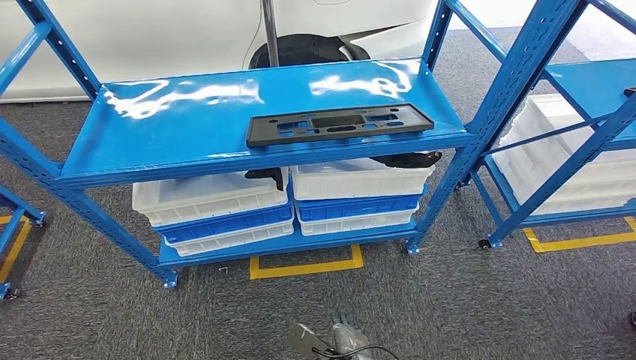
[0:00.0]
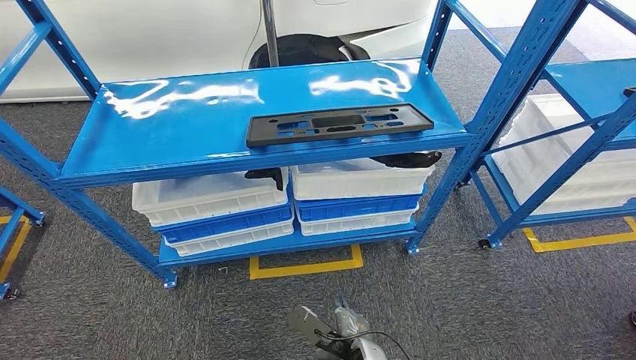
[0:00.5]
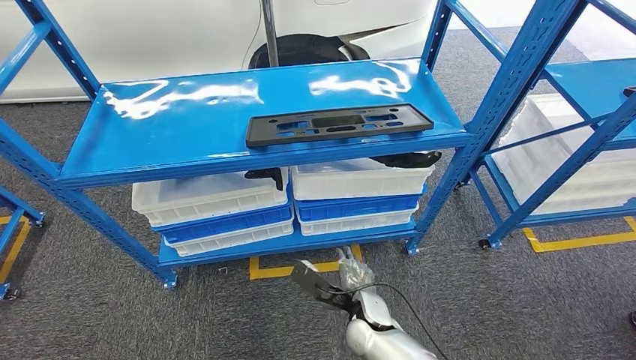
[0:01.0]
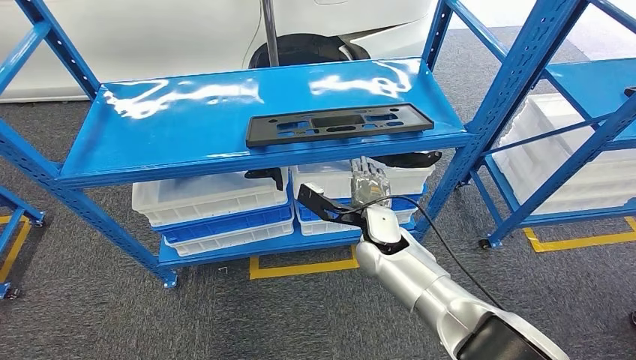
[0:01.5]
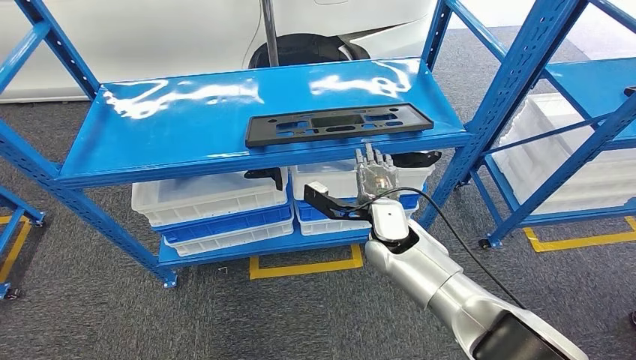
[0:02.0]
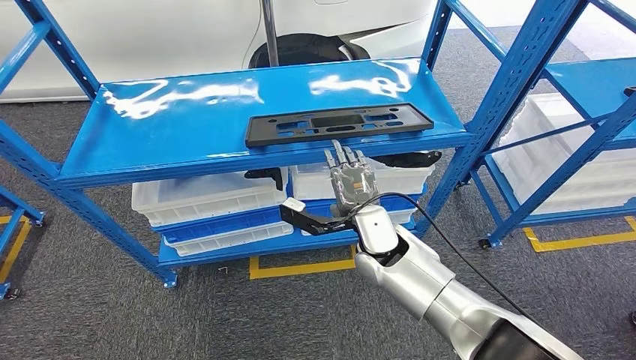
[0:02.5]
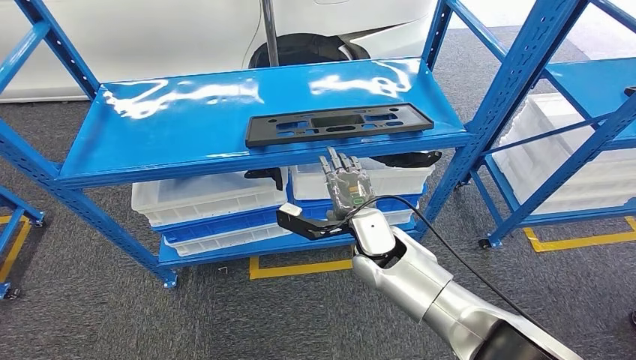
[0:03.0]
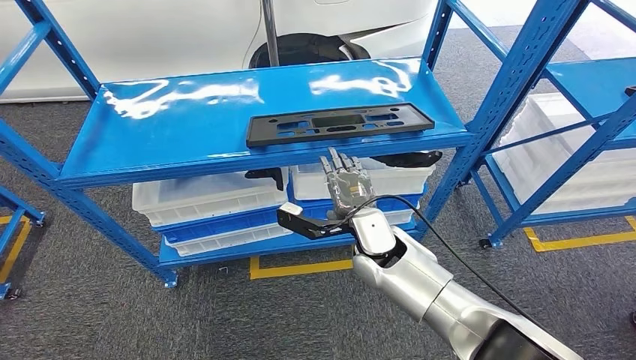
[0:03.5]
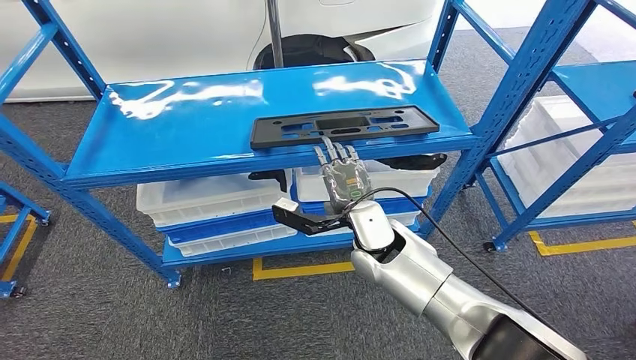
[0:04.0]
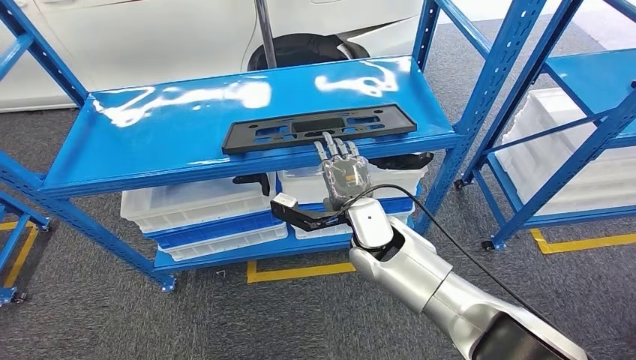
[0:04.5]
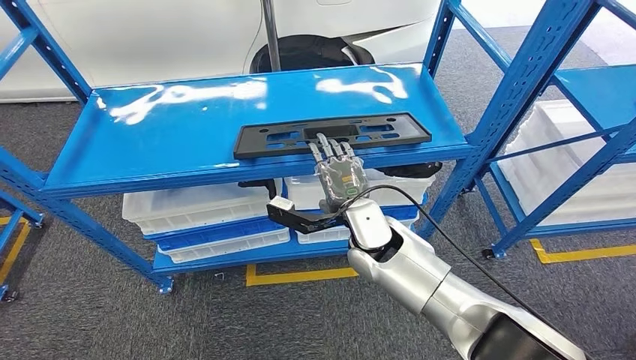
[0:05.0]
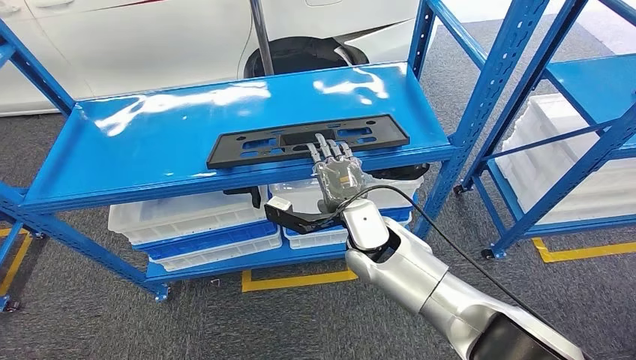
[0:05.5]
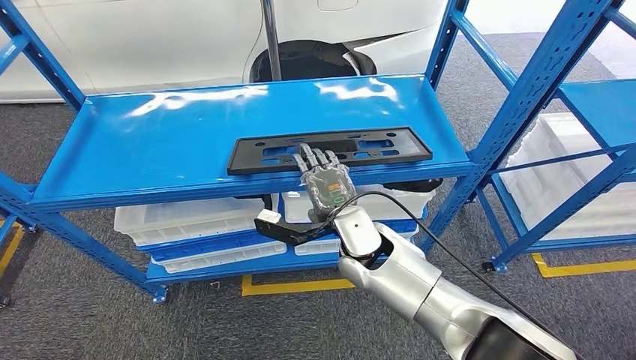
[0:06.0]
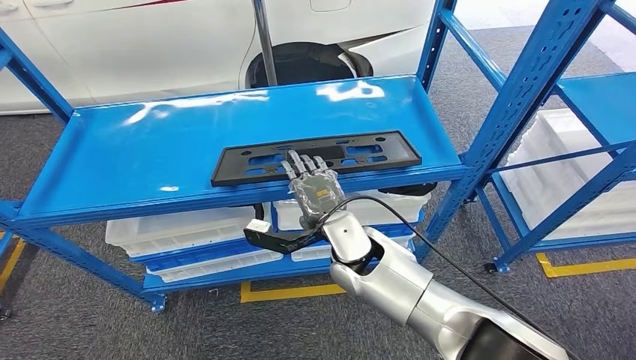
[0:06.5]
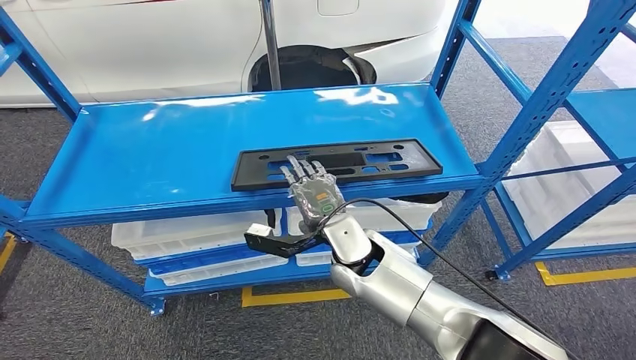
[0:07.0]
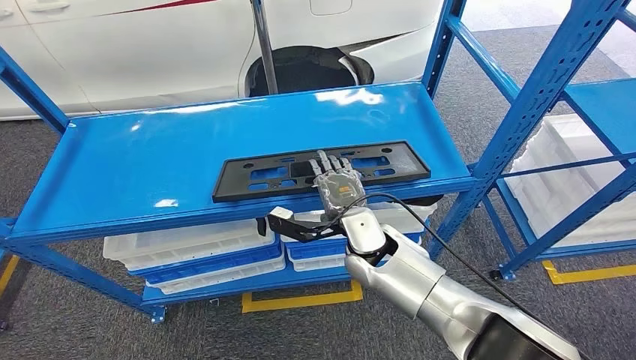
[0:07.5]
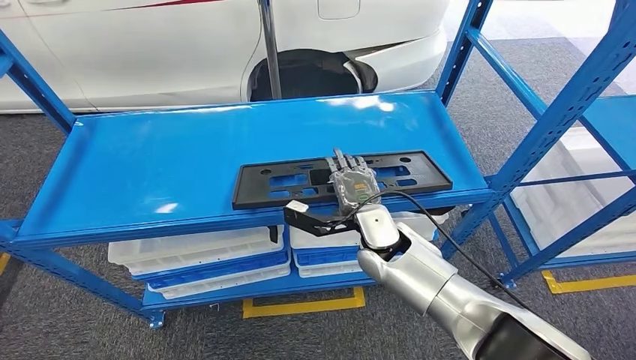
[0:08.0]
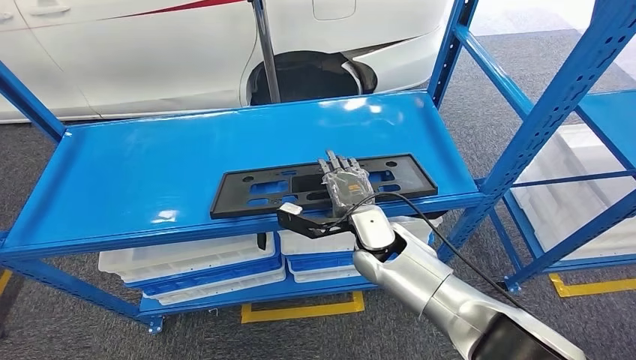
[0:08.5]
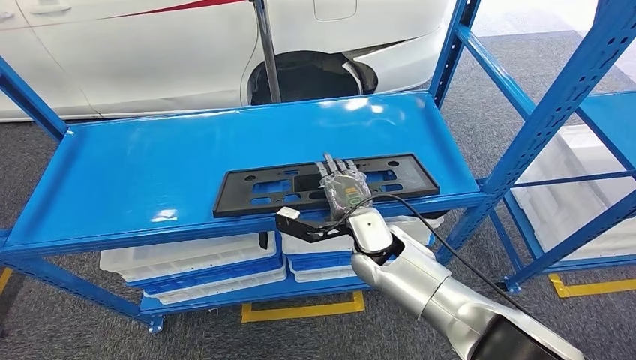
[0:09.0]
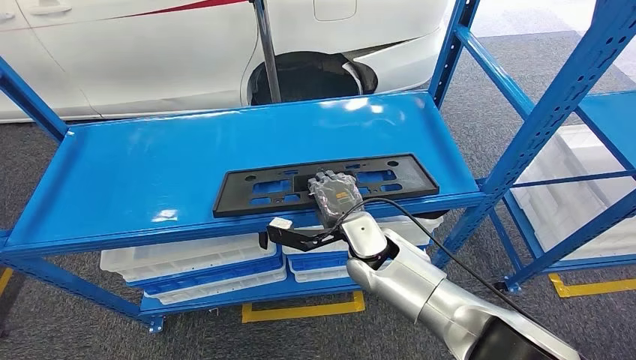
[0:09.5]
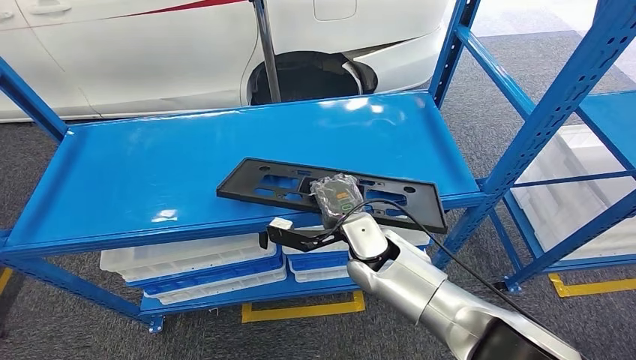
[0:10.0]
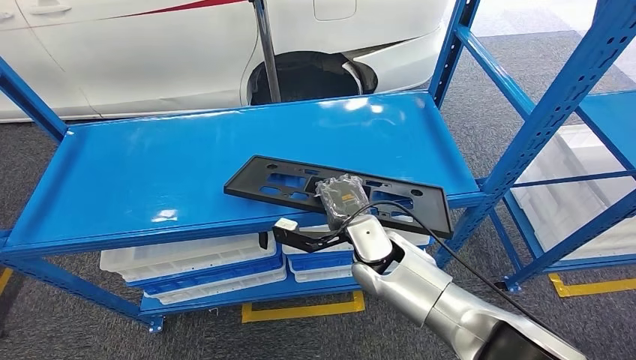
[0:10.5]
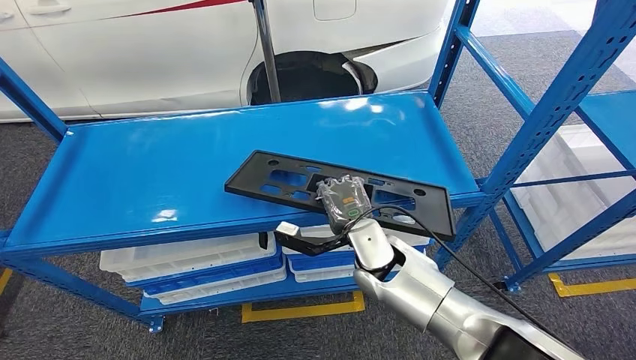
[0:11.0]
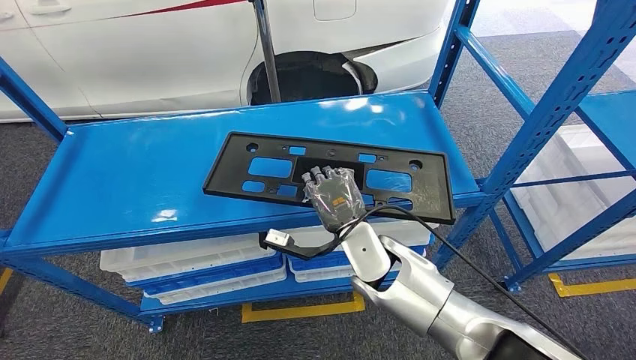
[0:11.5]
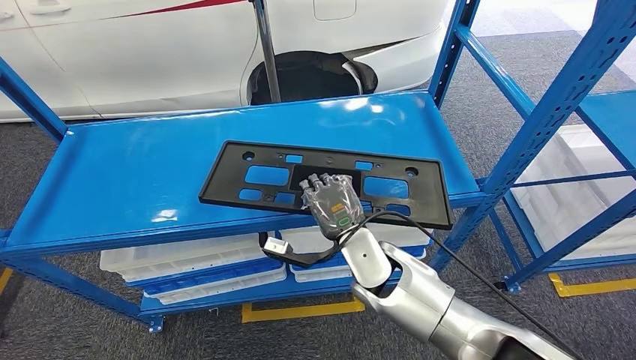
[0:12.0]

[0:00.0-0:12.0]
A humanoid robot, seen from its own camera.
0:00.0 to 0:02.0: The right hand goes roughly 25 cm upward and forward. The left hand moves to the right, approximately 5 cm.

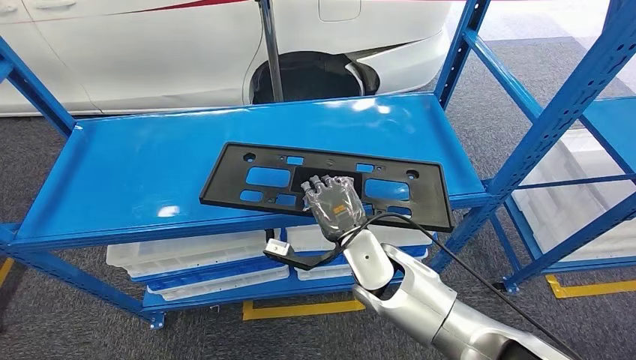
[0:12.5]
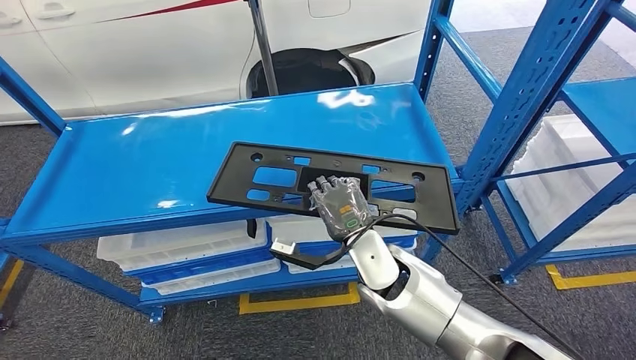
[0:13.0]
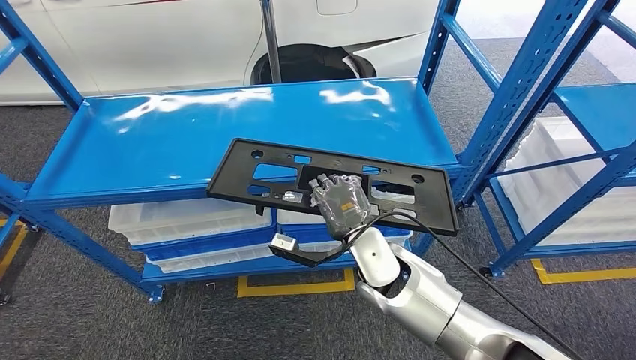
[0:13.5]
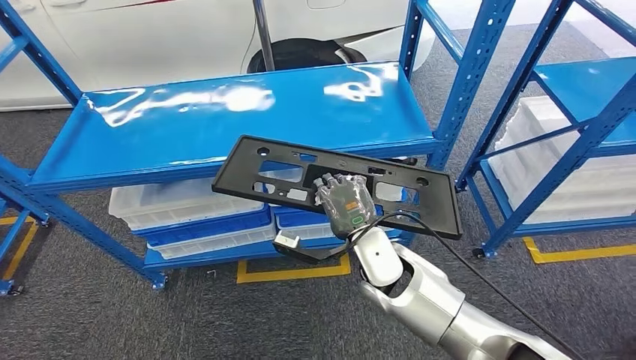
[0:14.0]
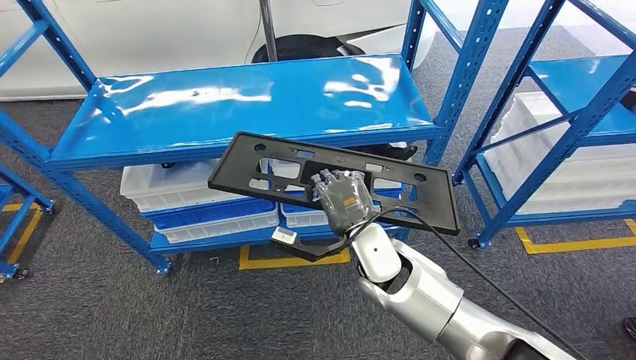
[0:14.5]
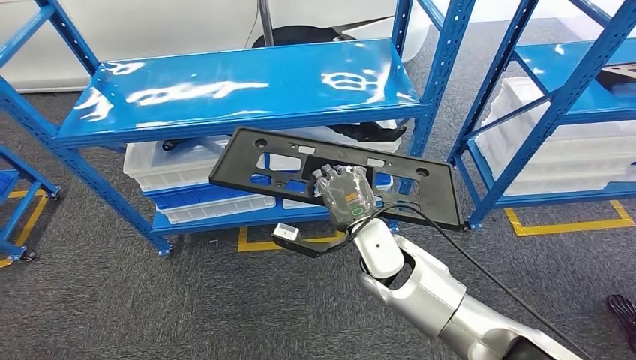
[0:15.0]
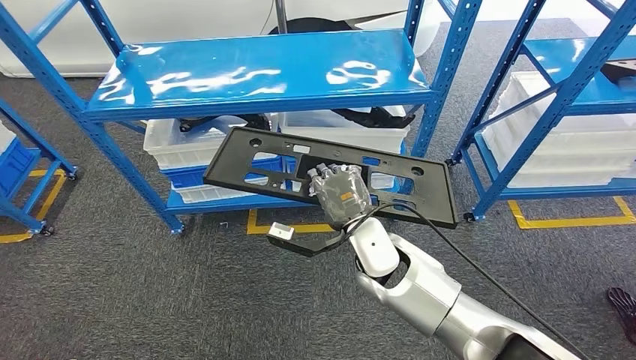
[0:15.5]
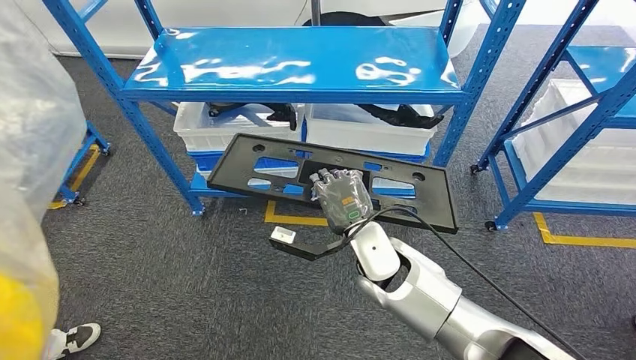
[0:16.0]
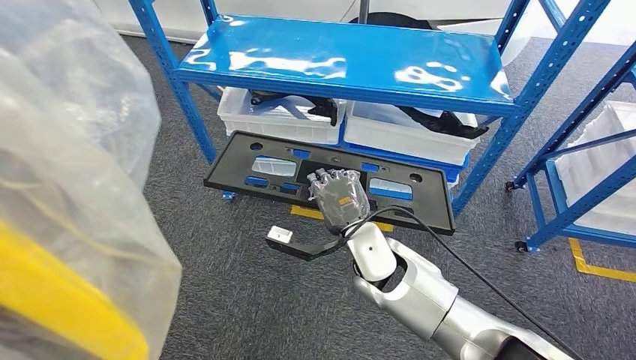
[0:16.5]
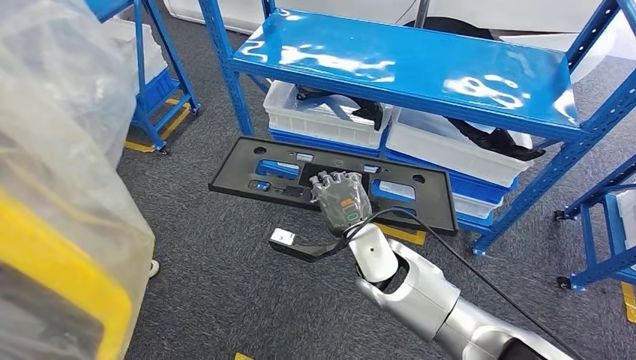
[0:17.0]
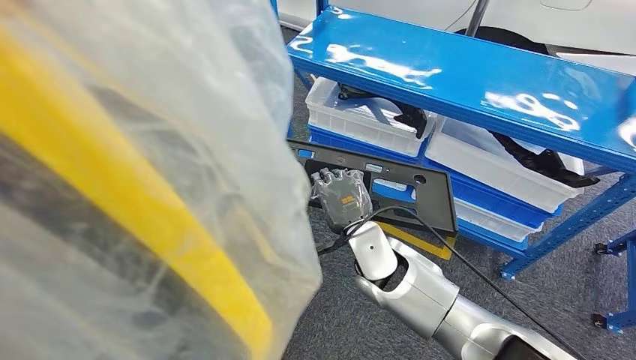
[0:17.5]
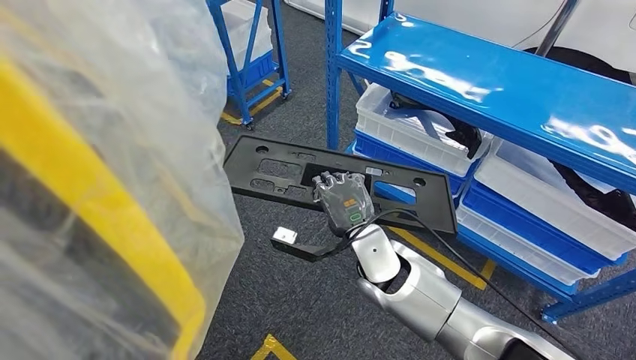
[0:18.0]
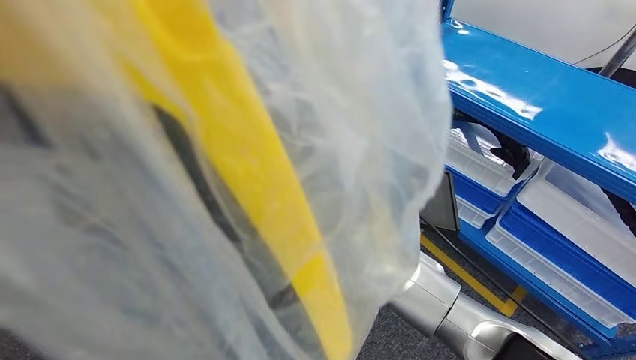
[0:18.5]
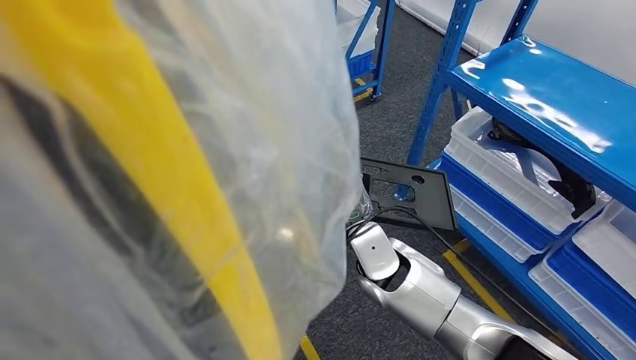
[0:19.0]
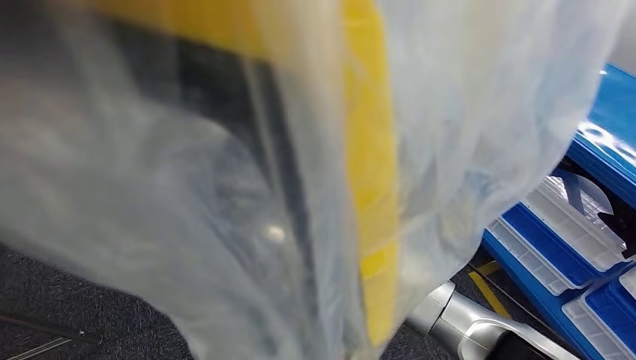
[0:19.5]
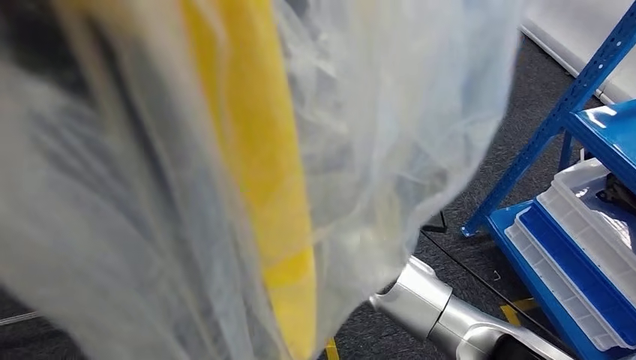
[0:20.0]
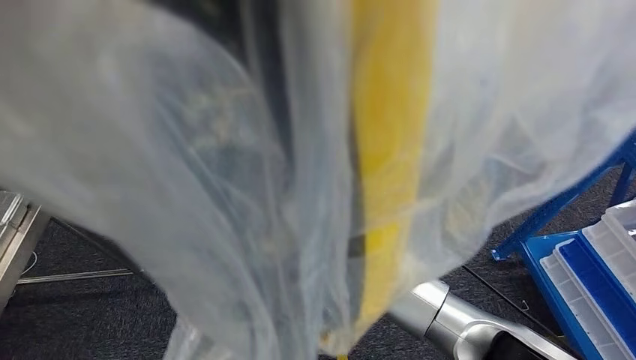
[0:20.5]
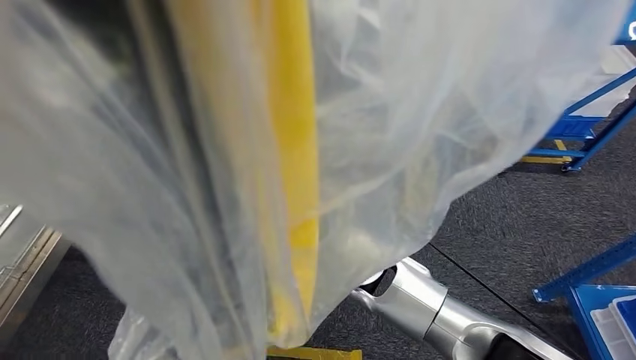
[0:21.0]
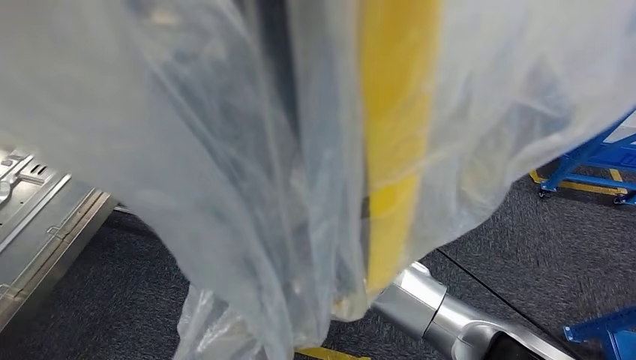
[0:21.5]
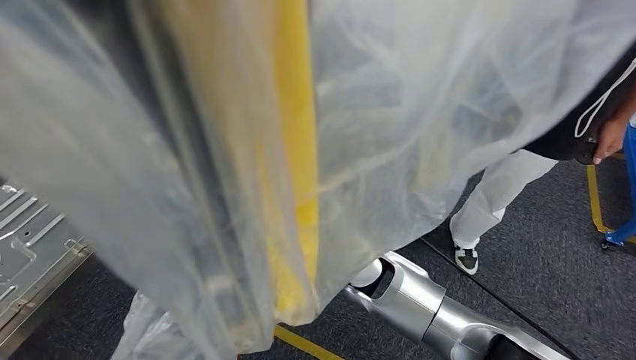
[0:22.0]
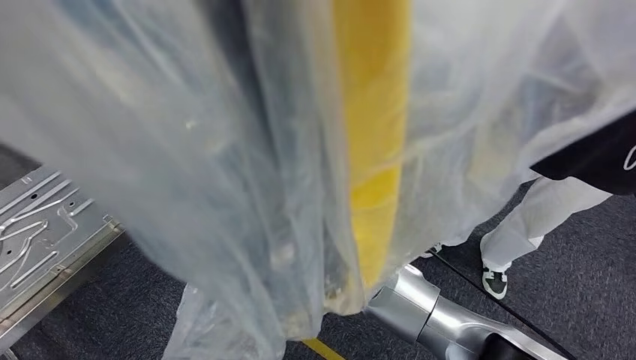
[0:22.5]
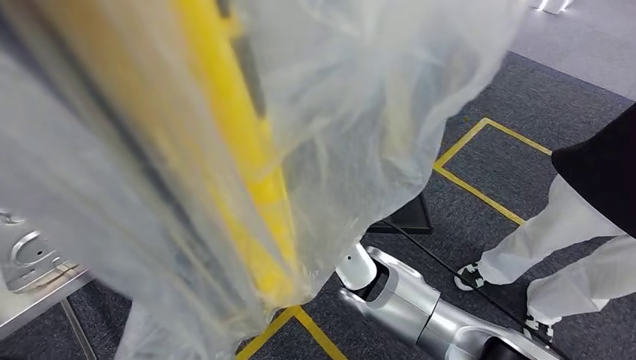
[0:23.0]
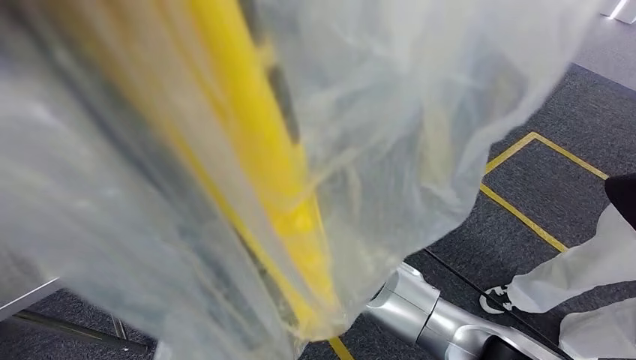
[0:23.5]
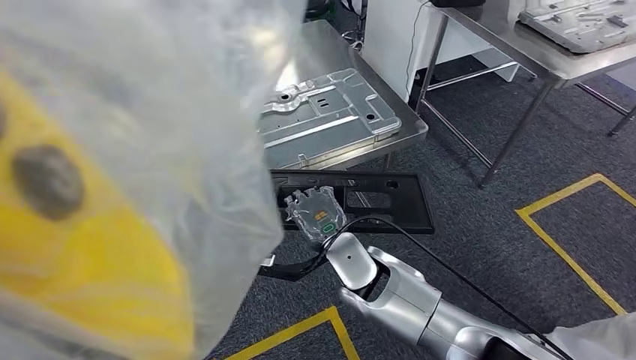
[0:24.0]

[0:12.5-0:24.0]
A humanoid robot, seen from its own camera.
Step, 0:15.5 to 0:23.0: Move the large material to the workbench.
